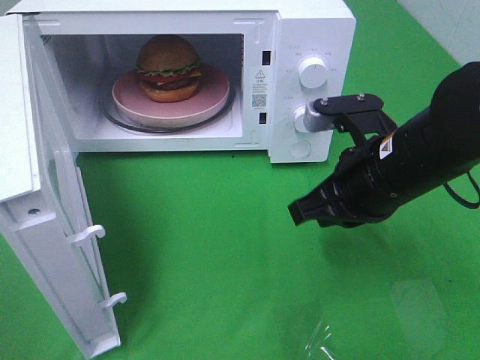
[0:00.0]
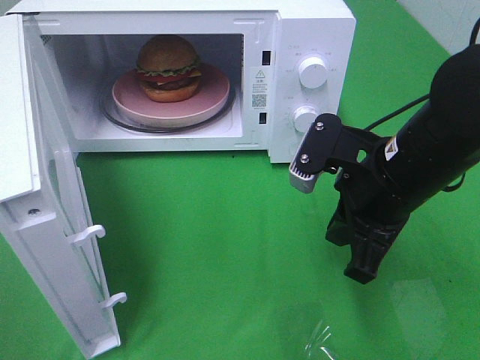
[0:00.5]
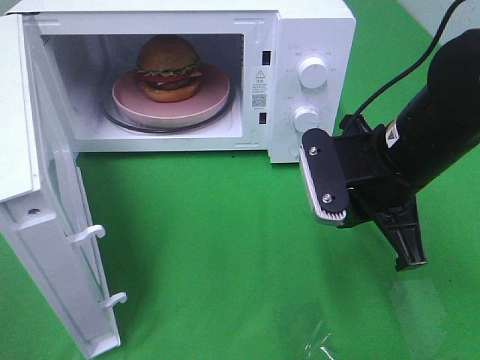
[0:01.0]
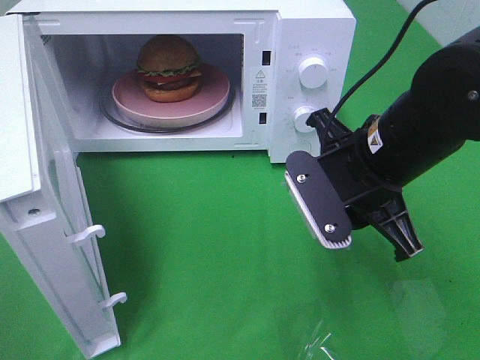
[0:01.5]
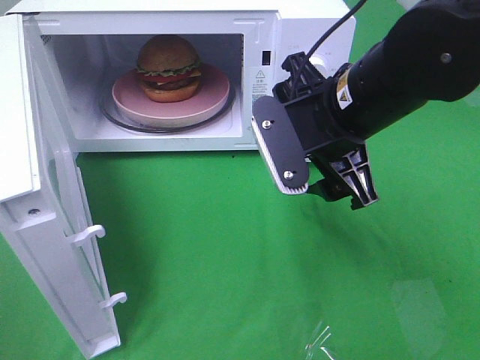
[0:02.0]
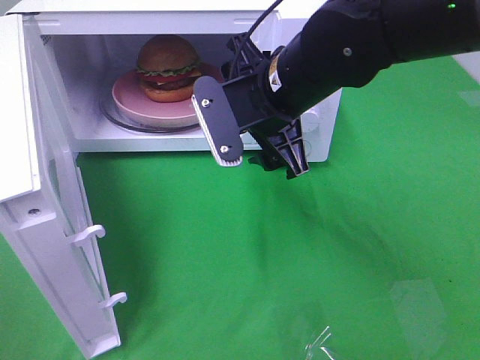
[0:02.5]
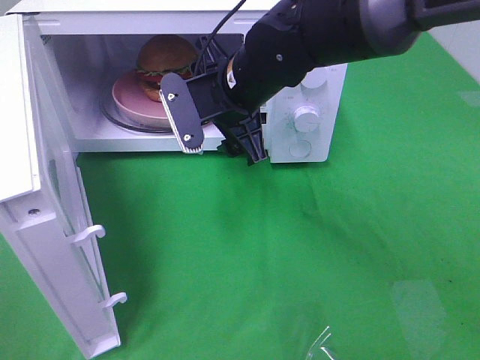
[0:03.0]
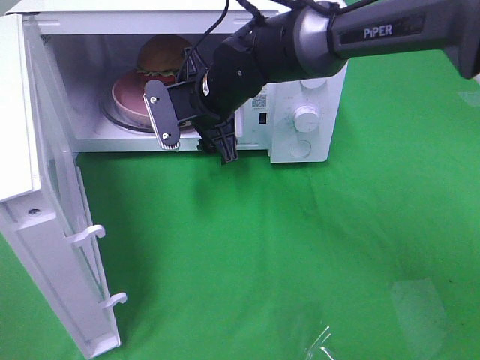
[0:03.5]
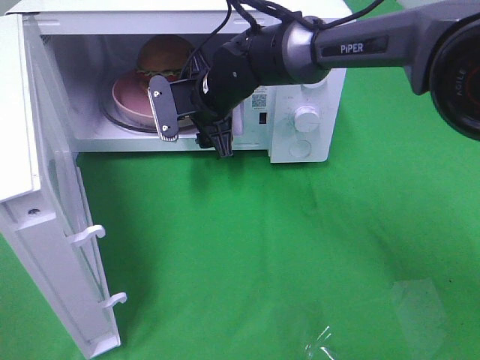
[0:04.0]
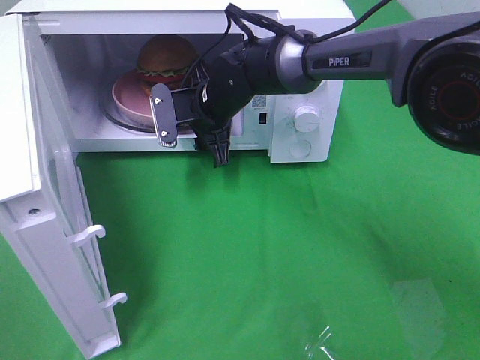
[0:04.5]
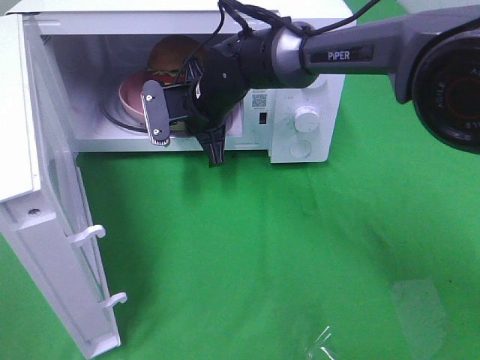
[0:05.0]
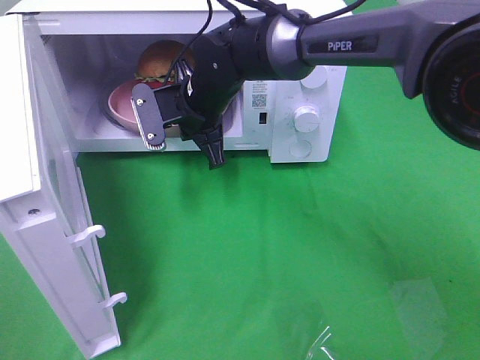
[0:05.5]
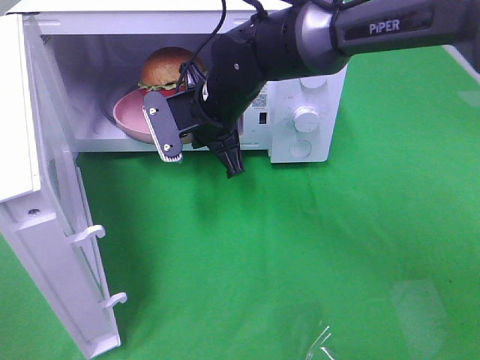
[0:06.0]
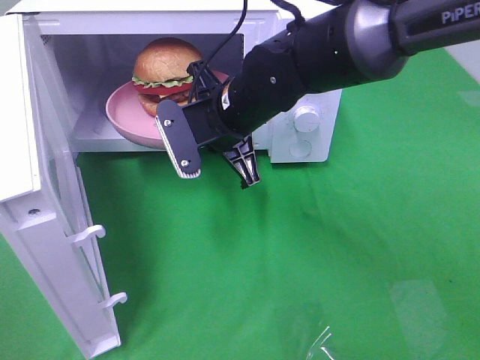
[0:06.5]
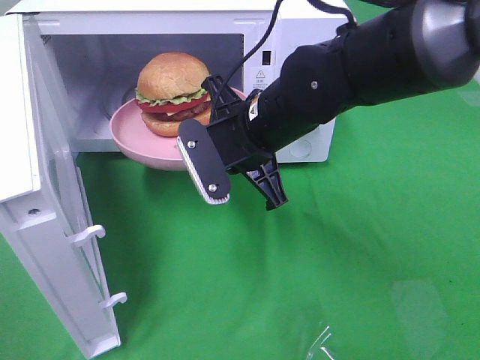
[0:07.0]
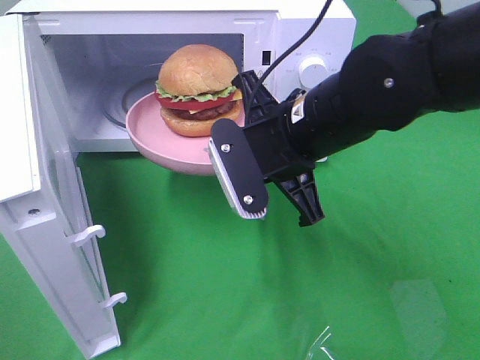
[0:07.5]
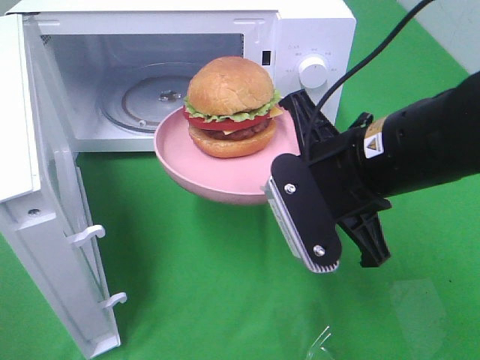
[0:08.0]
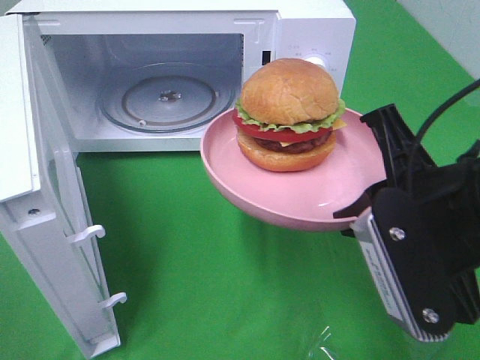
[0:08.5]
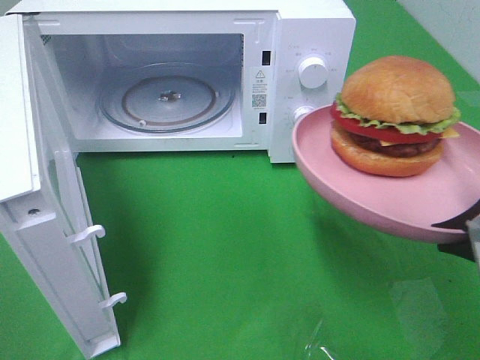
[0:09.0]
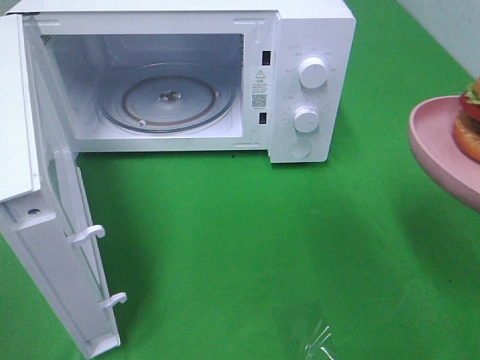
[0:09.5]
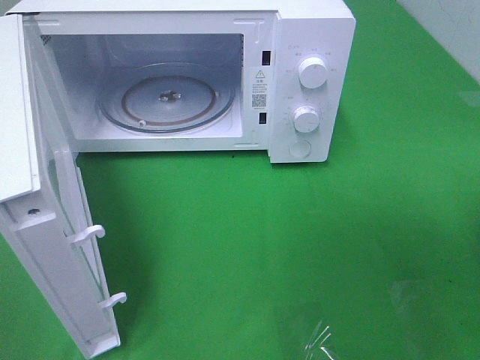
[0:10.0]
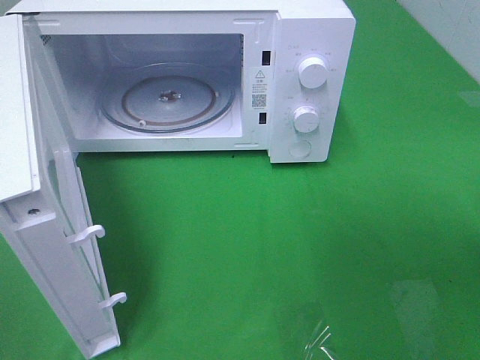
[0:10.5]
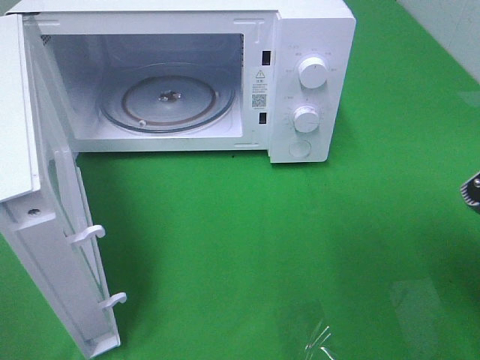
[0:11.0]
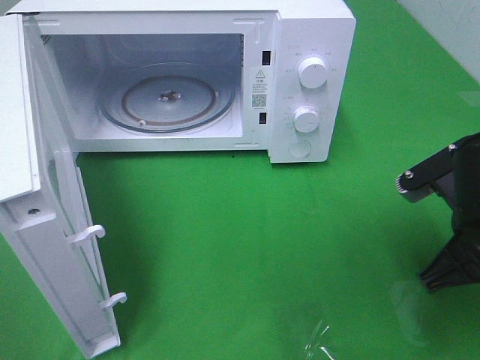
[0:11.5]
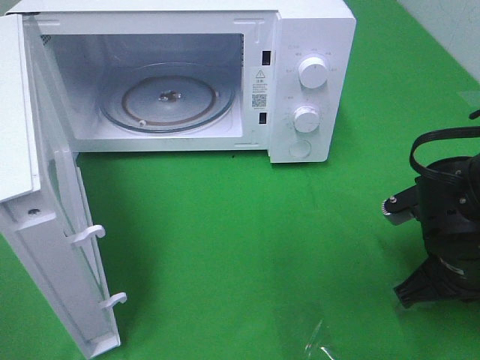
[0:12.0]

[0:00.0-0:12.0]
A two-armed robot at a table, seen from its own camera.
Task of the whole recording: Heat the burger.
Step, 0:00.0 to 0:05.5: Right hand: grab the plate with the hamburger.
0:00.0 to 0:02.0: The right gripper is displaced upward by roughly 5 cm, and opens up.
0:02.0 to 0:04.0: The right gripper travels forward, to the left and downward by roughly 20 cm.
0:04.0 to 0:06.0: The right gripper goes roughly 5 cm backward, and closes.
0:06.0 to 0:08.0: The right gripper shifts roughly 20 cm backward and to the right.
0:08.0 to 0:10.0: The right gripper goes about 20 cm to the right and backward.
0:10.0 to 0:12.0: The right gripper heads downward, forward and to the left, covering approximately 15 cm.

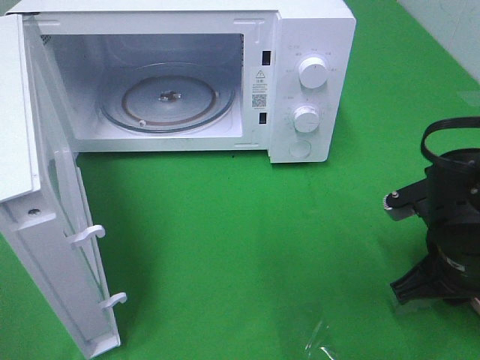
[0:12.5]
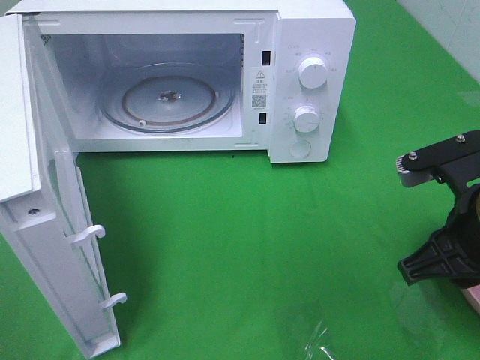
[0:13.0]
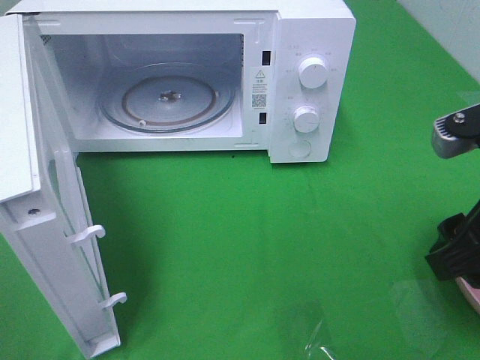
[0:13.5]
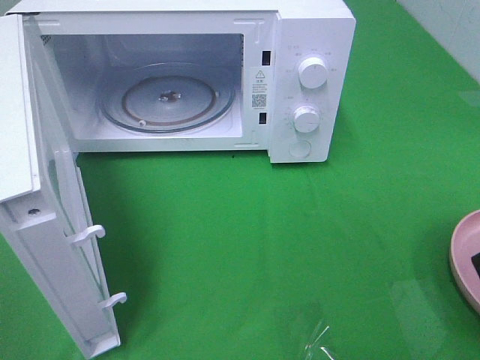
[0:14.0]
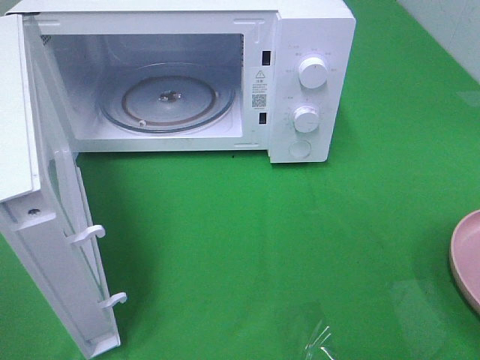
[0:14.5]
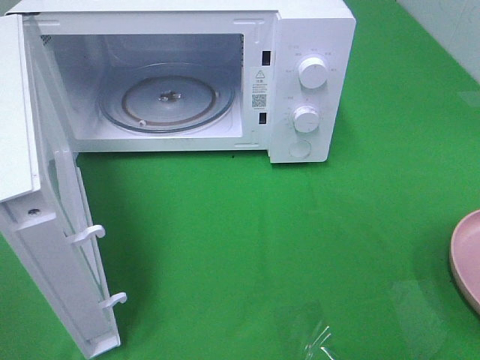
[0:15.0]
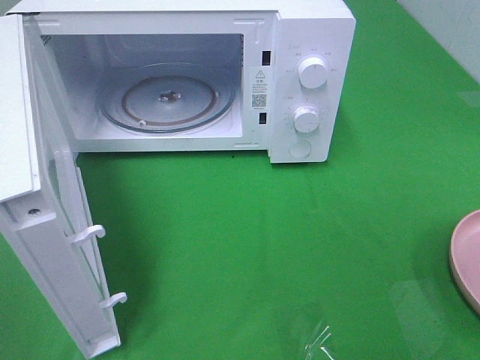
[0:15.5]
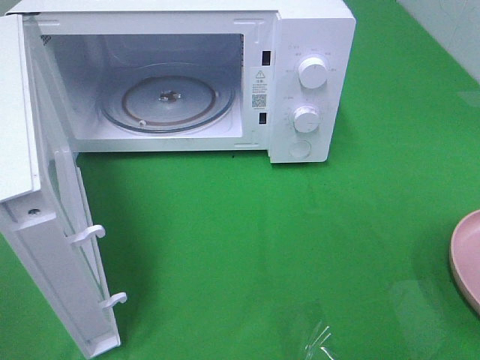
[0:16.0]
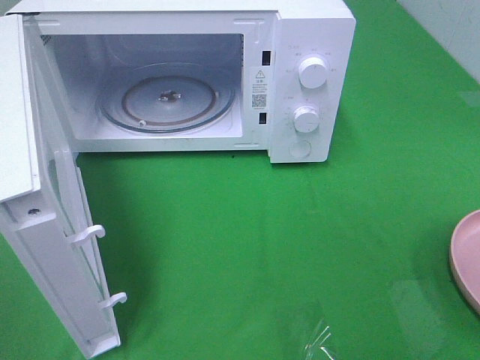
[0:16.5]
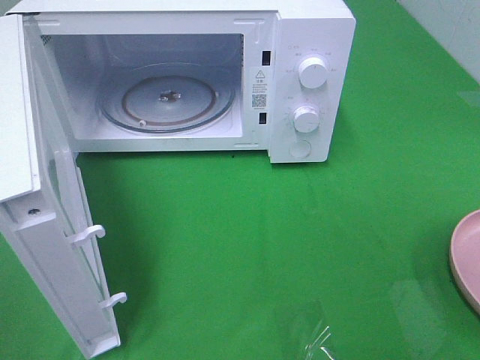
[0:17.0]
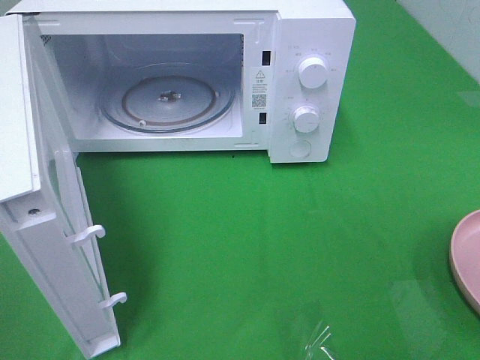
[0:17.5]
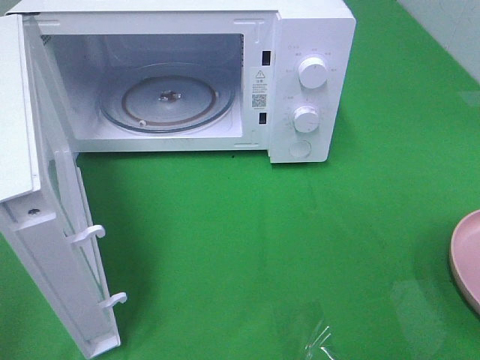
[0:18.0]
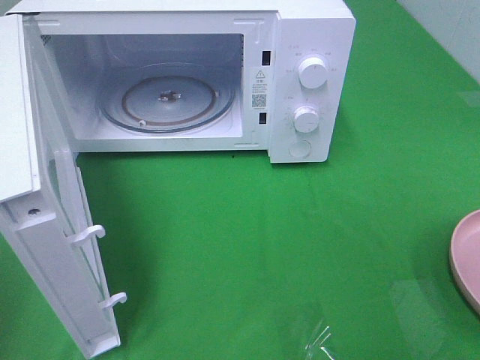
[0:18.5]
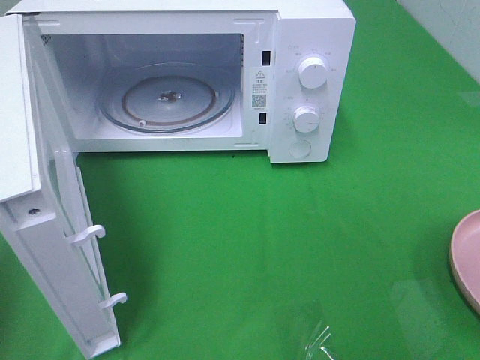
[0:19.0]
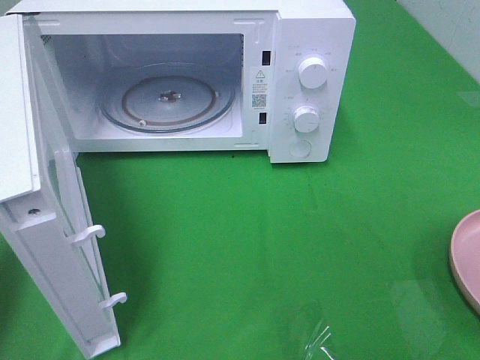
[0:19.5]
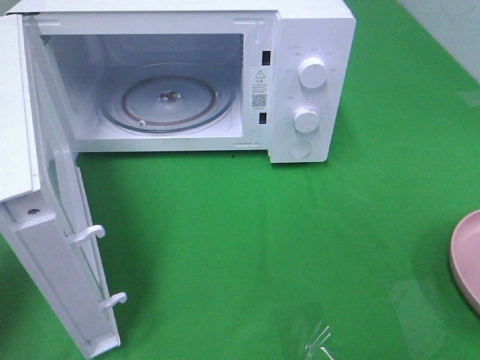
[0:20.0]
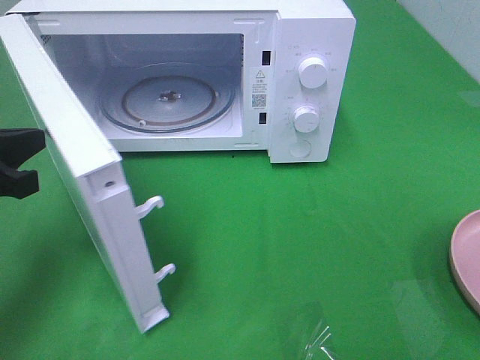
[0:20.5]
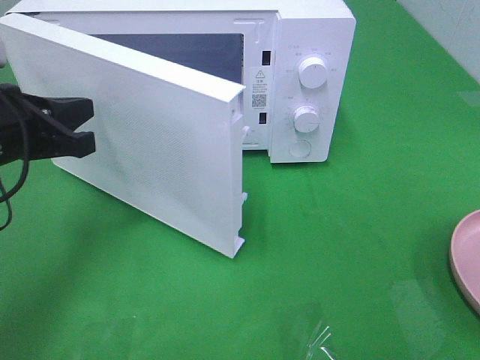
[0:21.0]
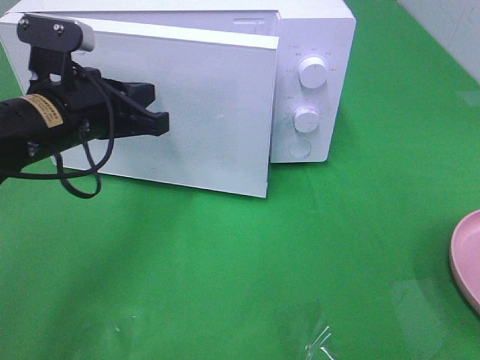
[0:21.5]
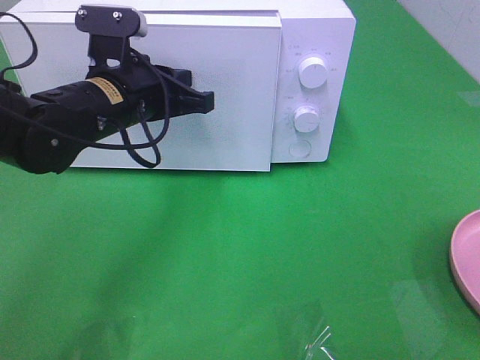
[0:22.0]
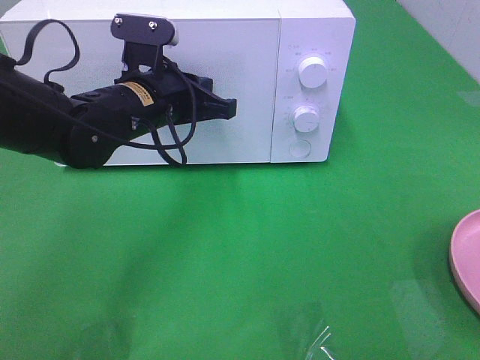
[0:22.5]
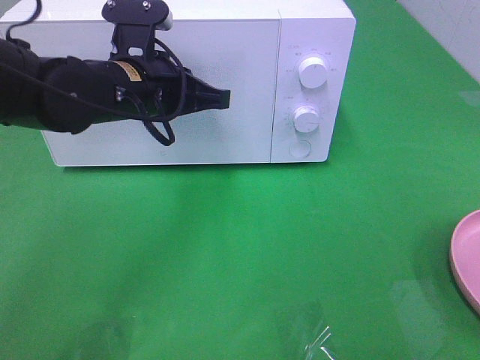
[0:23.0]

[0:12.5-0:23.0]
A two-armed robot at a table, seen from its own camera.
Task of the whole recording: Heat the burger.
0:12.5 to 0:14.5: The right gripper goes roughly 20 cm upward and backward, and opens its fingers.
0:19.0 to 0:21.0: The left gripper is displaced forward, to the right and downward by roughly 20 cm.
0:21.0 to 0:23.0: The left gripper shifts some 15 cm to the right and forward.

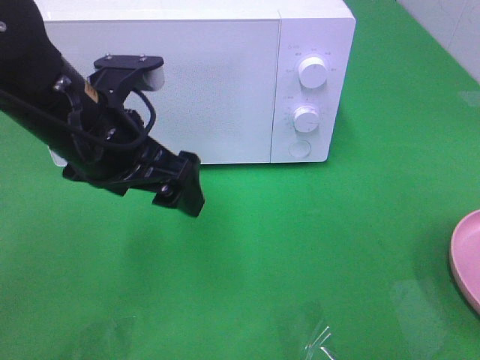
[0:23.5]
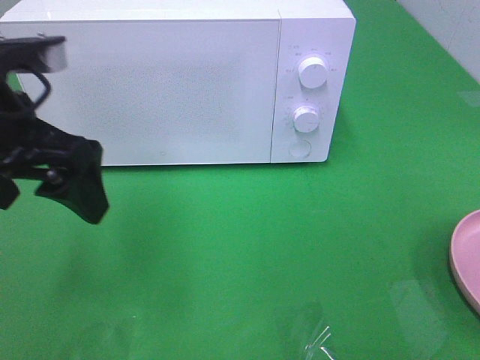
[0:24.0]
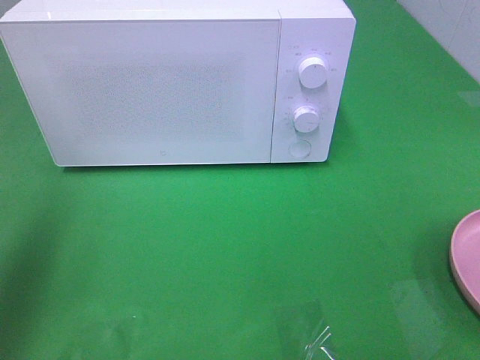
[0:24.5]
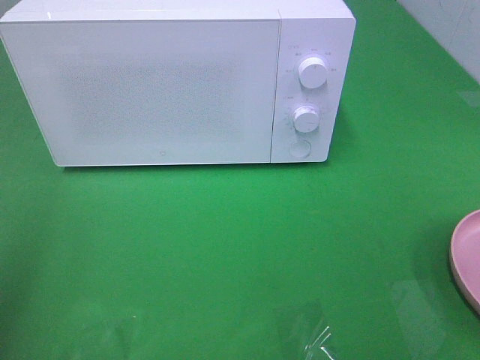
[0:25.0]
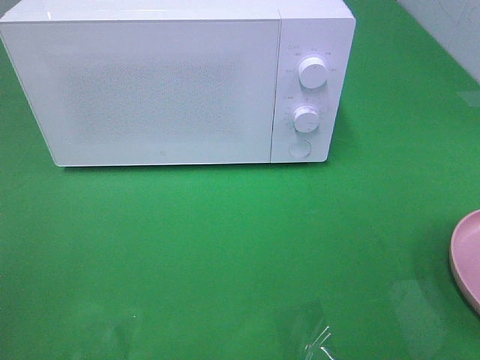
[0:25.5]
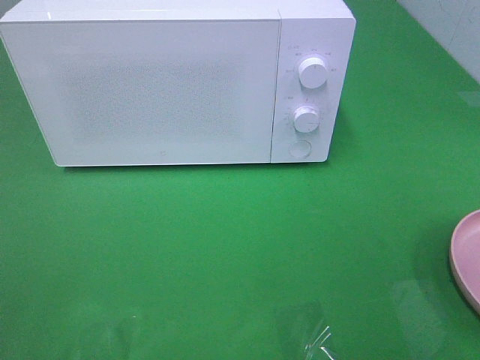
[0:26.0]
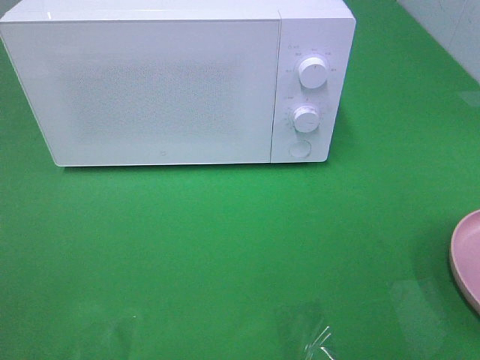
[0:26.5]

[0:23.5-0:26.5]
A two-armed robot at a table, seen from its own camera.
Task of the whole recording: Heat the burger.
0:23.5 to 0:25.0: The left gripper moves to the left, backward and upward, some 25 cm.
